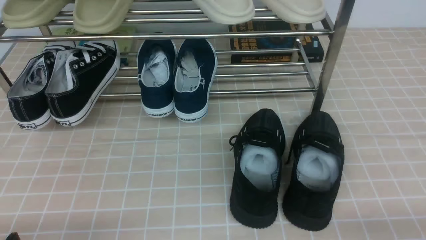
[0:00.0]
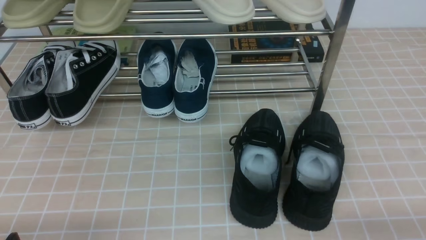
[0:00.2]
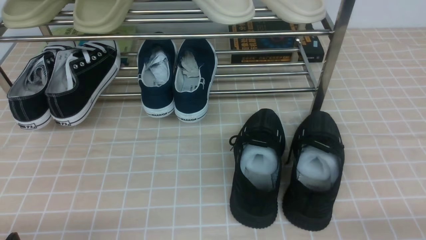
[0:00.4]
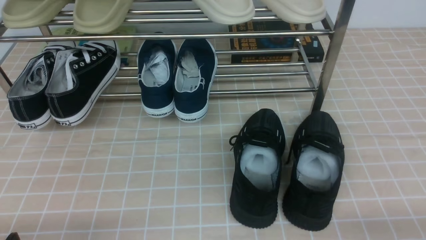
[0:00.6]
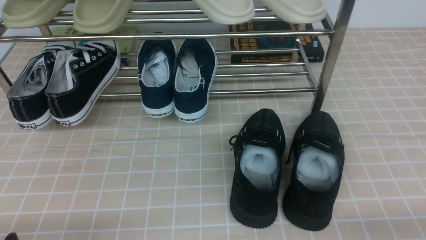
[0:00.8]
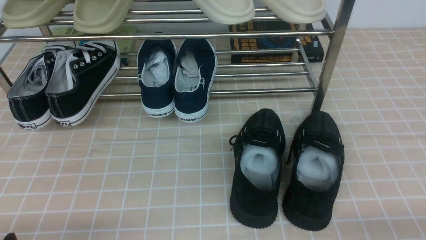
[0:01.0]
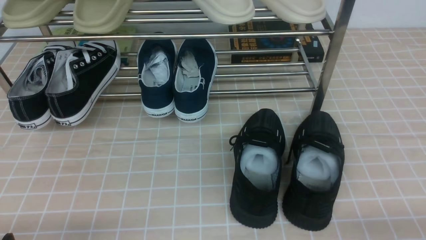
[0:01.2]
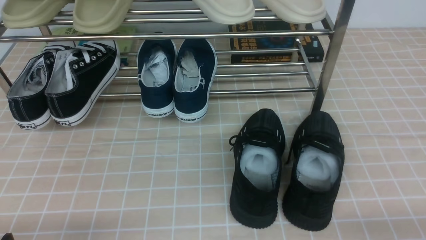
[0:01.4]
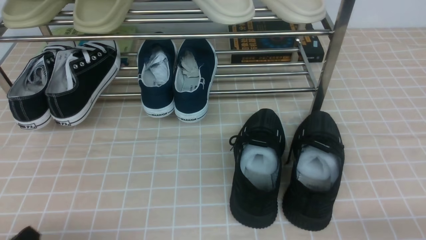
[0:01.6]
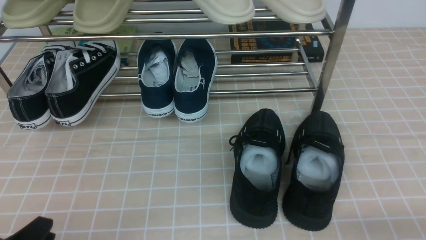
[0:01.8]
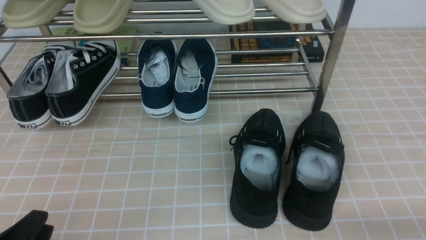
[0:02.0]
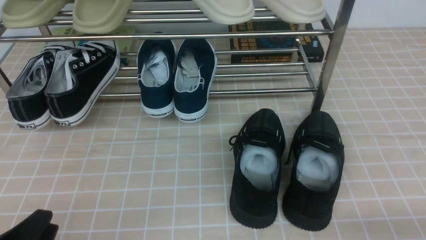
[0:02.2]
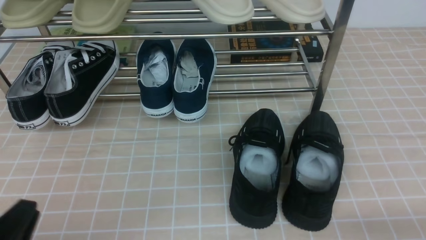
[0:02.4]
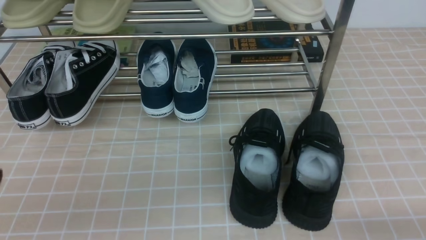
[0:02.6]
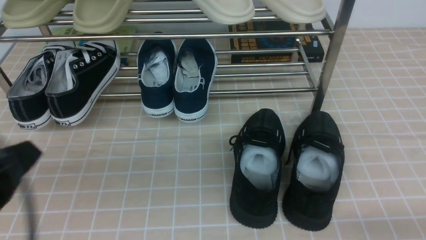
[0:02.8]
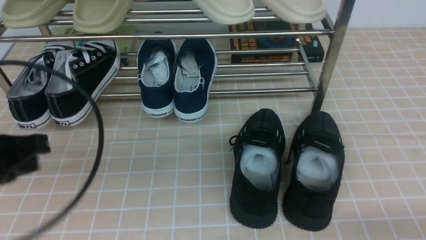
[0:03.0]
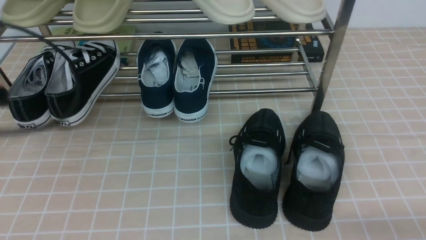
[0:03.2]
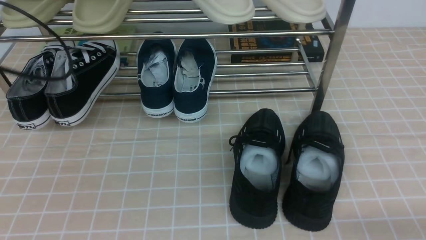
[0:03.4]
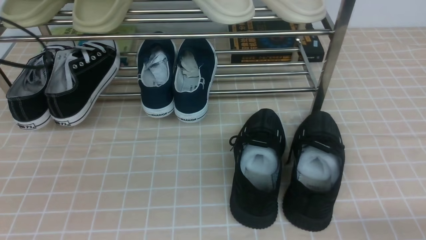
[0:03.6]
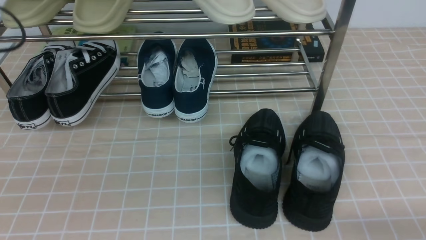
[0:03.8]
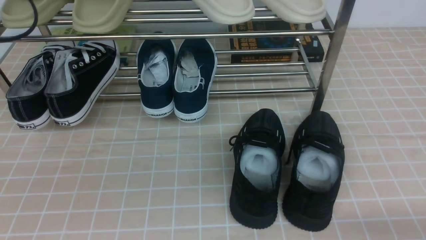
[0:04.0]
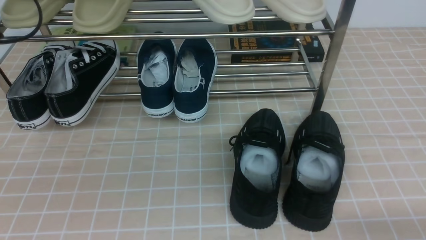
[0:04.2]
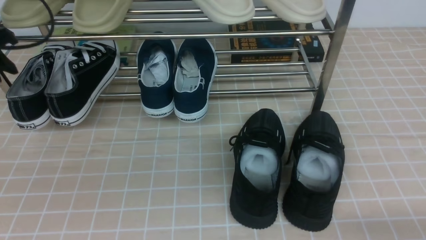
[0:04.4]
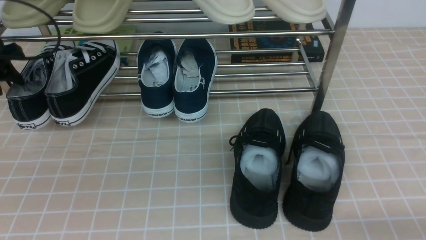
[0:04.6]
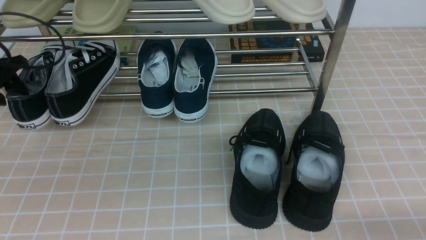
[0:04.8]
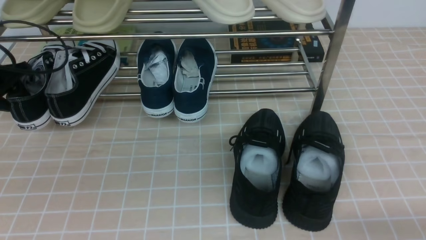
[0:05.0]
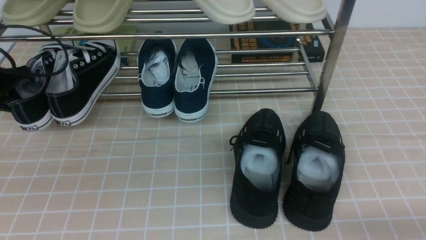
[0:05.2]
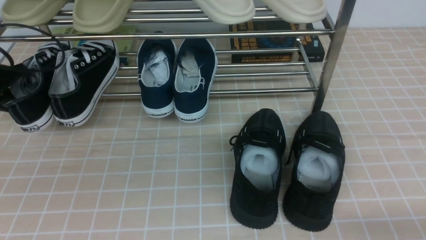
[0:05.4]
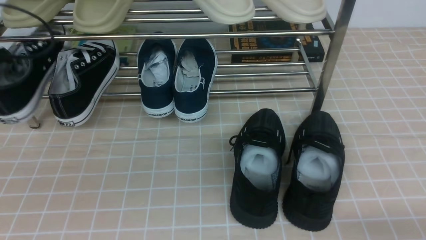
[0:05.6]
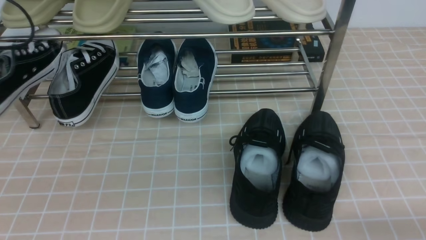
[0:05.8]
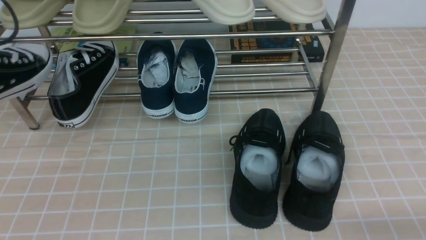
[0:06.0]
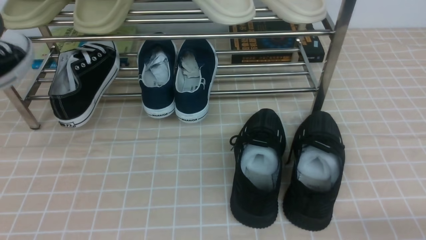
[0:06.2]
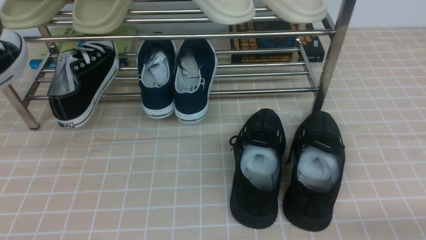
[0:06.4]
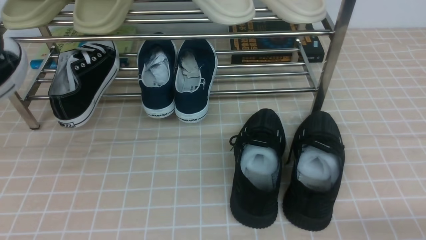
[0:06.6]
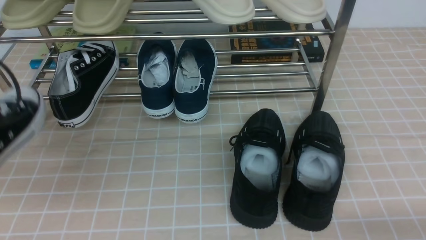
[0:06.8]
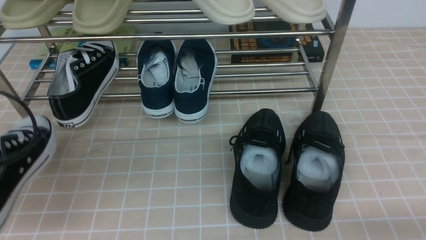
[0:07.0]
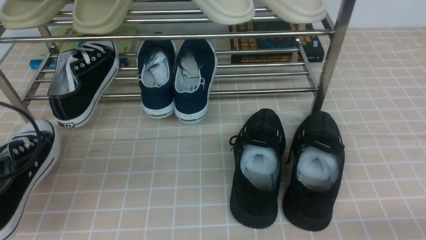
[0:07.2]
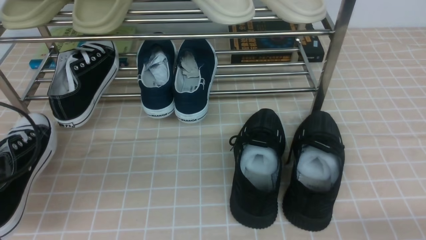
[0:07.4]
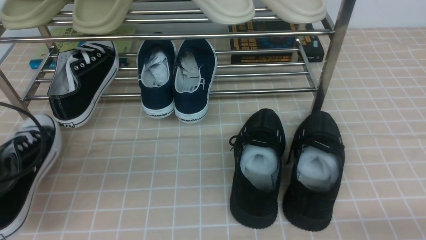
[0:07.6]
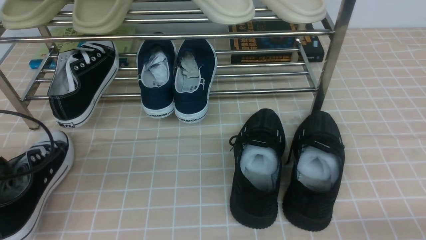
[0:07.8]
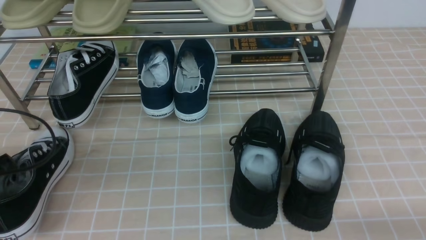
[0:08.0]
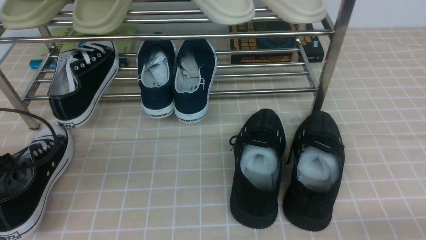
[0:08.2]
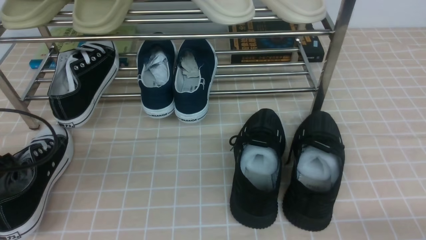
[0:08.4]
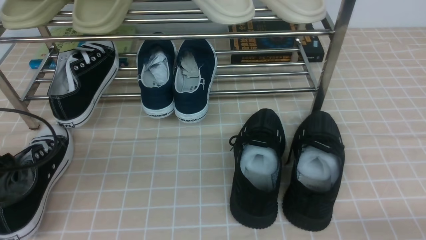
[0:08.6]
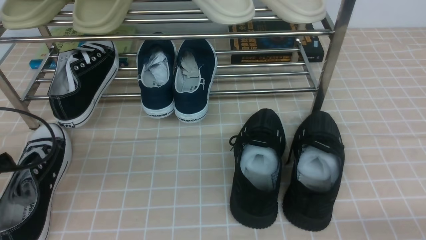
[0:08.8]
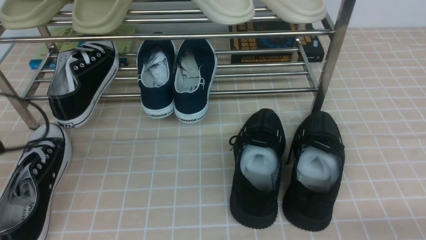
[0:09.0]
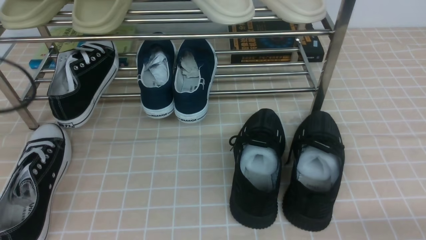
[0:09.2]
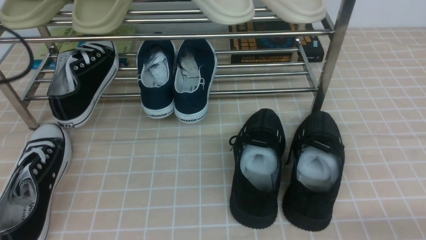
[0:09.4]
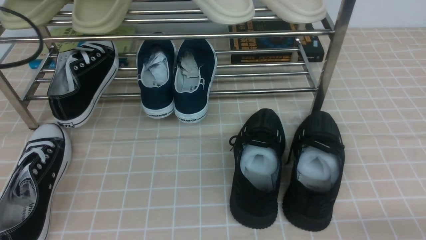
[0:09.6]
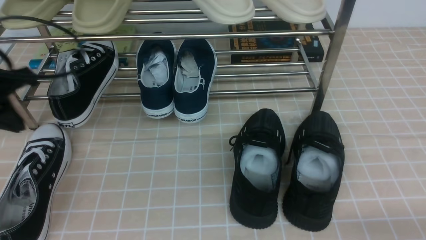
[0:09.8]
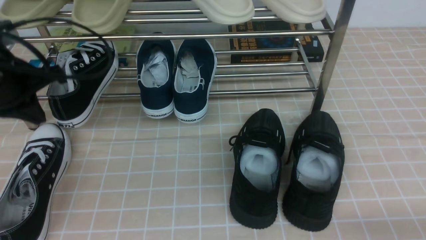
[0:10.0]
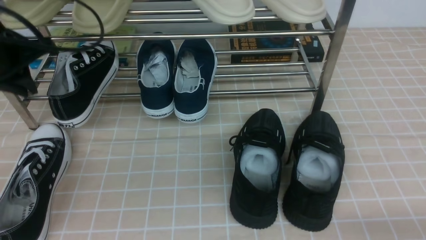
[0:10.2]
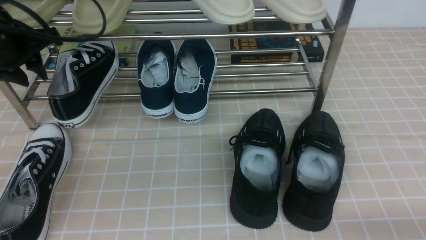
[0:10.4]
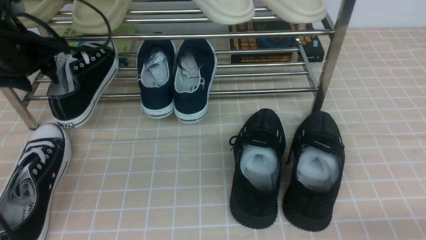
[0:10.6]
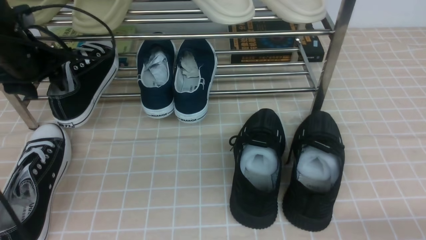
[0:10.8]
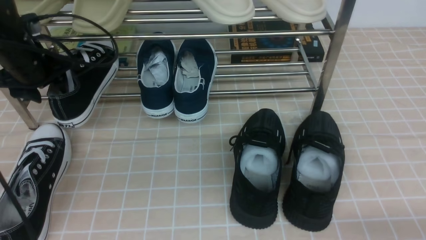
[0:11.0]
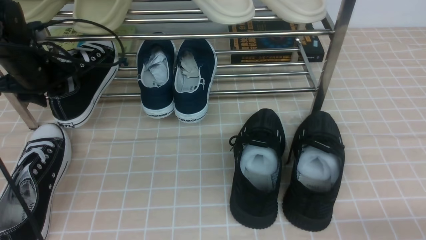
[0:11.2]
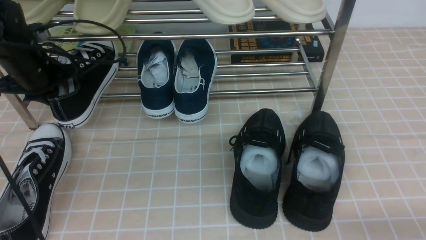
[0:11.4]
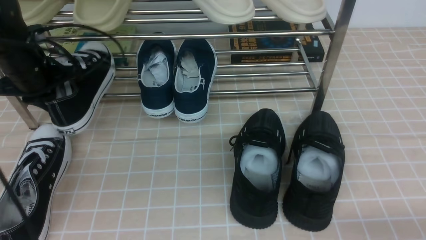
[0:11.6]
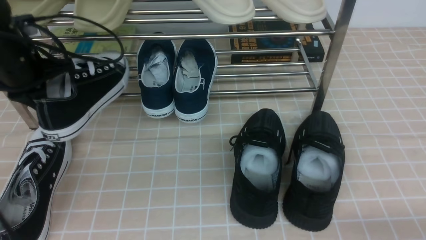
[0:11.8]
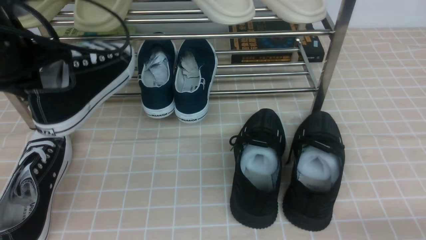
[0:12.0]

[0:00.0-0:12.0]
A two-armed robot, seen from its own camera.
Step, 0:00.0 to 0:05.0: use the left arm to clamp a shoe on the left side of the shoe rack.
Step, 0:05.2 to 0:08.6: Use your left arm to remove the clamped shoe from the shoe rack and put it down.
Step, 0:09.0 to 0:11.0: use the left arm to clamp a shoe on the left side of the shoe rack.
0:01.6 to 0:03.0: The left gripper moves upward and forward, approximately 20 cm, and closes up.
0:03.0 to 0:04.4: The left gripper heads forward and to the left, covering approximately 25 cm, and opens.
0:04.4 to 0:06.0: The left gripper moves backward and upward, some 15 cm, and closes up.
0:06.0 to 0:07.6: The left gripper shifts about 15 cm downward and backward.
0:07.6 to 0:09.0: The left gripper opens its fingers.
0:09.0 to 0:10.4: The left gripper is displaced forward, upward and to the right by approximately 15 cm, and closes, then opens again.
0:10.4 to 0:12.0: The left gripper travels downward and back again, about 5 cm each way, and closes up.

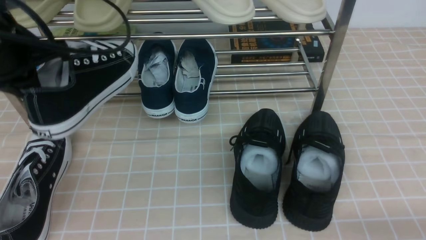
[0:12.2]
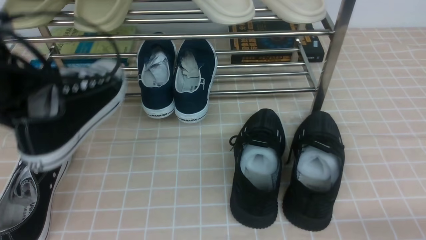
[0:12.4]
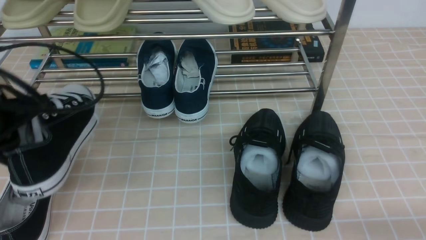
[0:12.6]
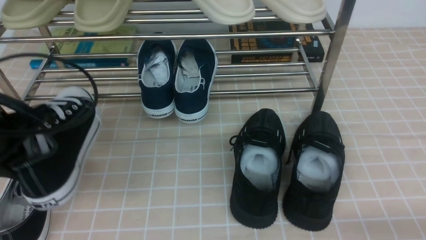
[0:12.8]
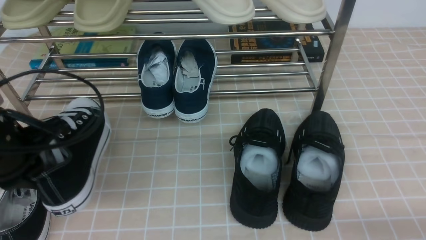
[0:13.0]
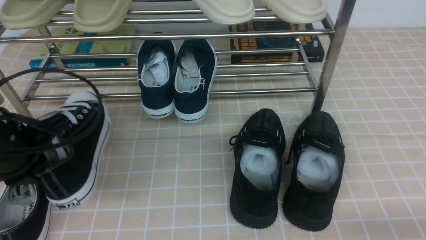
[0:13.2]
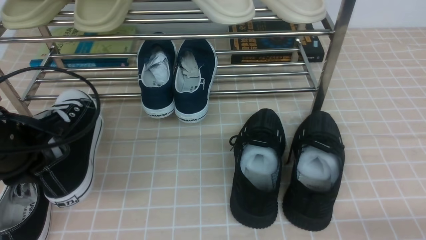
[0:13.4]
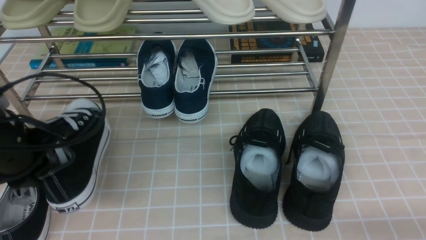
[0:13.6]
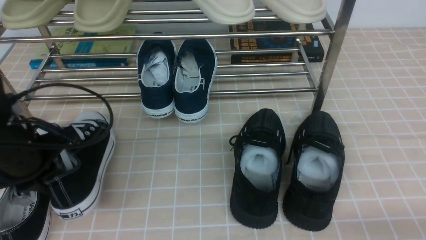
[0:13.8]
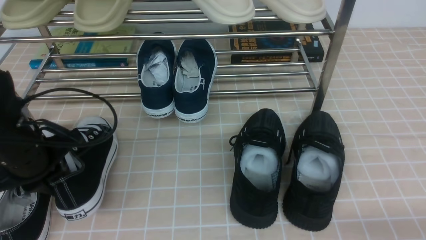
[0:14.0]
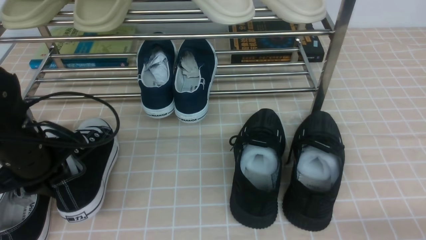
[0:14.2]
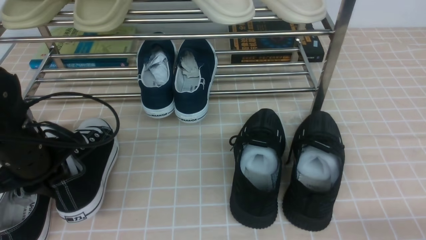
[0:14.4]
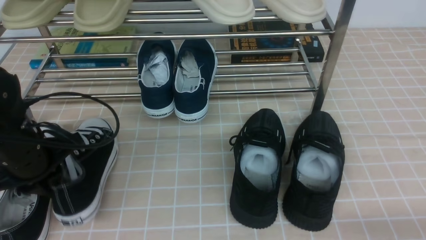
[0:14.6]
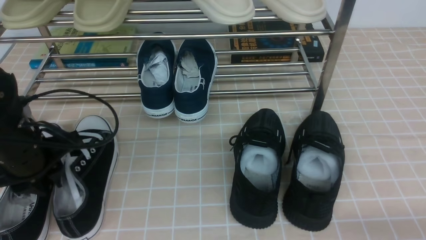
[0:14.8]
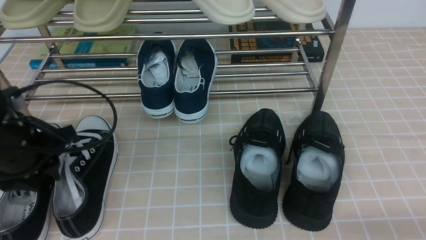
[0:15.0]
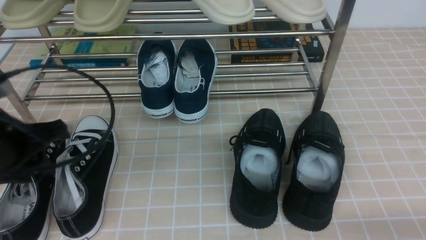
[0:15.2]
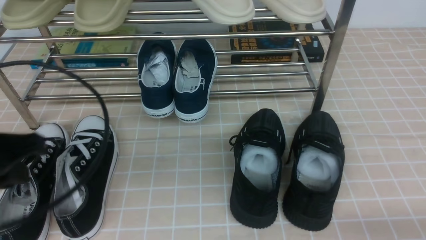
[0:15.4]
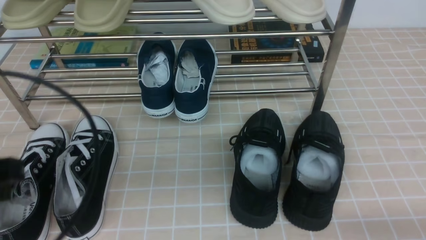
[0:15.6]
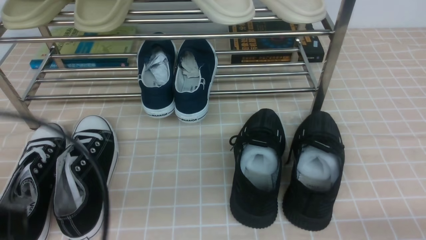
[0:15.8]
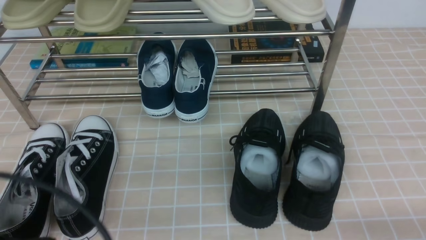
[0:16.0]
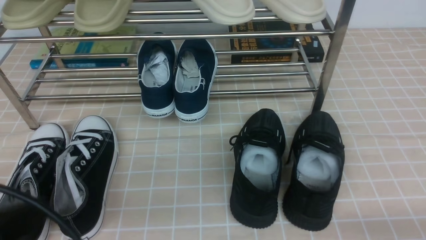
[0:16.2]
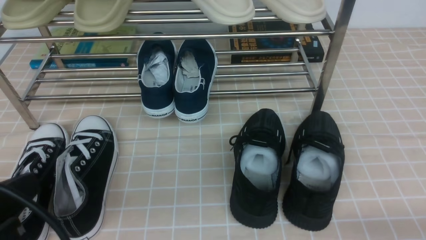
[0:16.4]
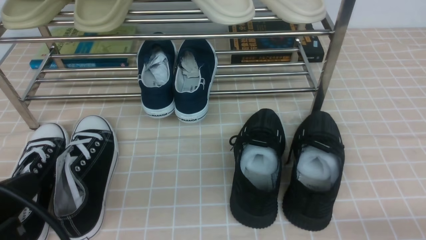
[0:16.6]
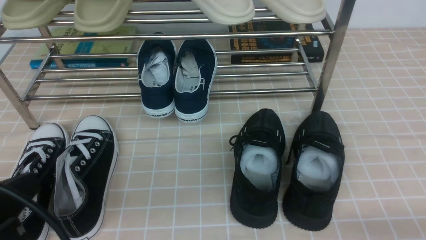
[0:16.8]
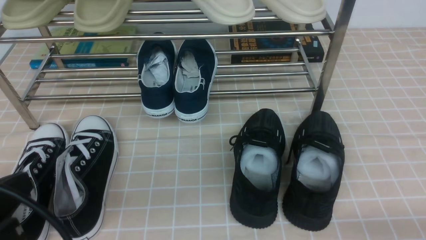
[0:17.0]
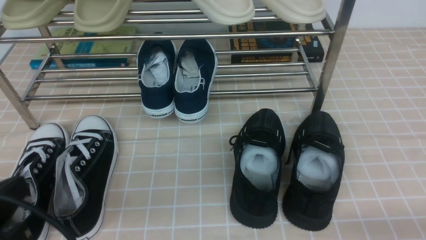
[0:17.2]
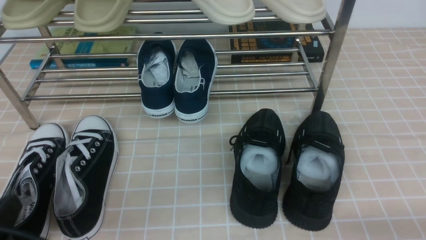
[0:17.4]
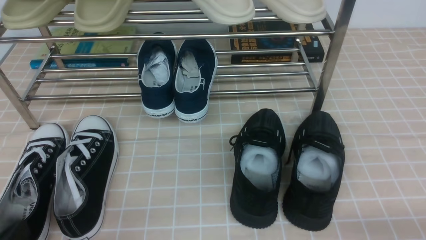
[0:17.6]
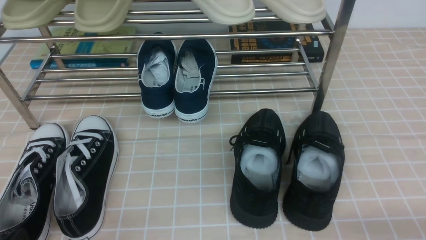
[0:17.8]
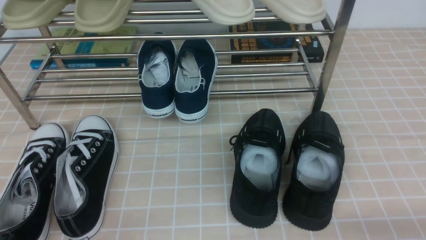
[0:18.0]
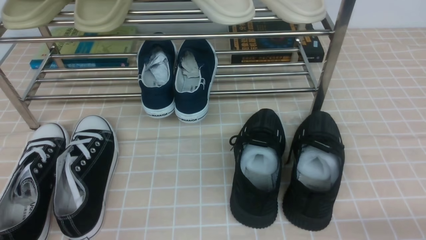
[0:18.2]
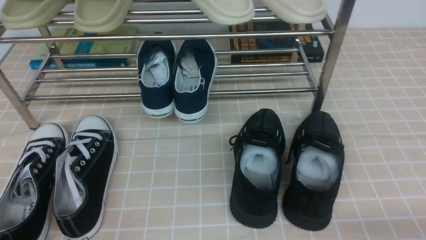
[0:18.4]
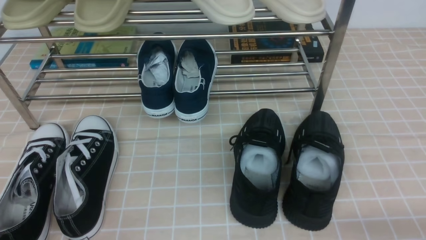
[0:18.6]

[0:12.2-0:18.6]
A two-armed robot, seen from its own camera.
Step, 0:12.2 to 0:15.0: Use your left arm to remove the clamped shoe from the shoe rack and put it down.
0:12.2 to 0:13.8: The left gripper heads downward, covering some 10 cm.
0:13.8 to 0:15.4: The left gripper heads backward and upward, covering roughly 10 cm.
0:15.4 to 0:17.0: The left gripper heads backward, covering roughly 10 cm.
0:17.0 to 0:18.6: The left gripper shifts approximately 15 cm downward.
